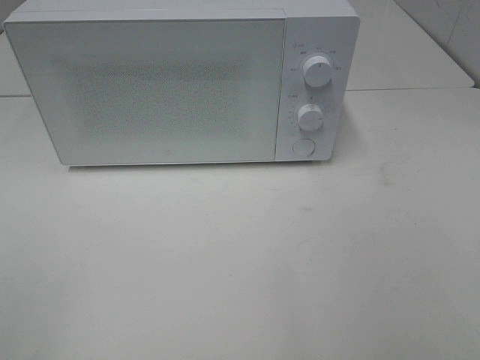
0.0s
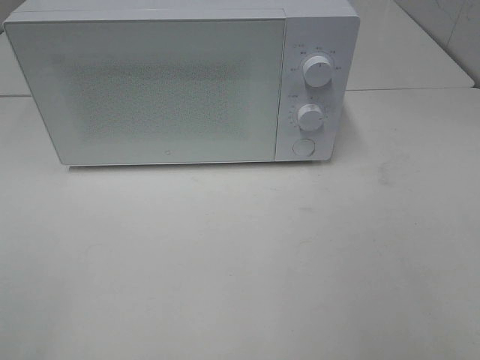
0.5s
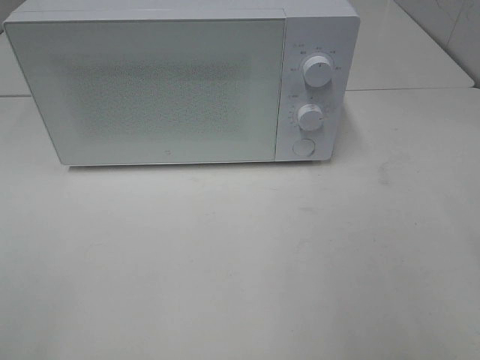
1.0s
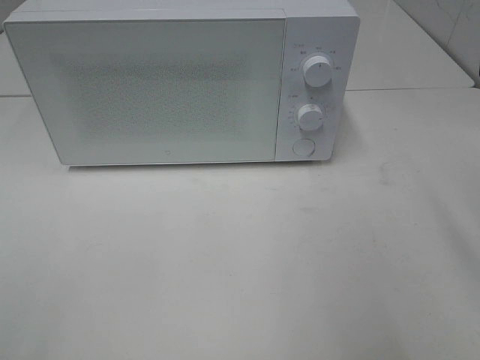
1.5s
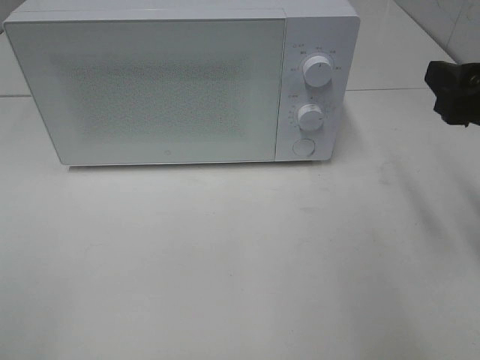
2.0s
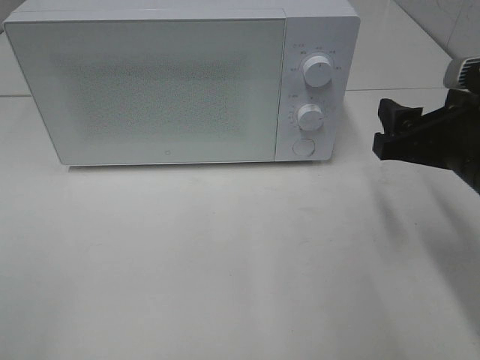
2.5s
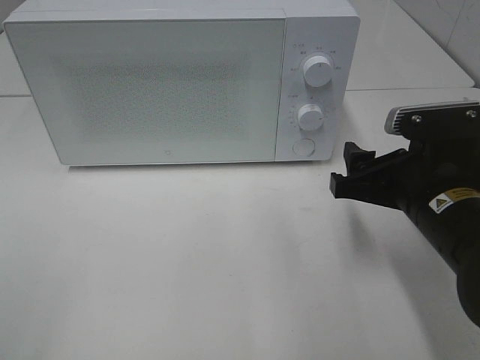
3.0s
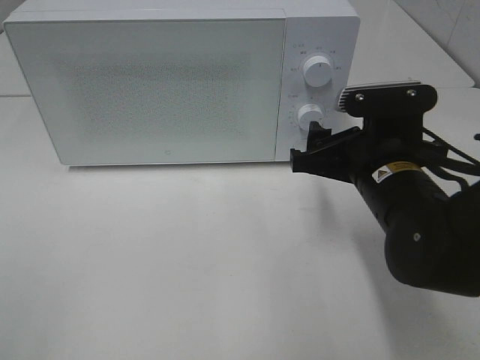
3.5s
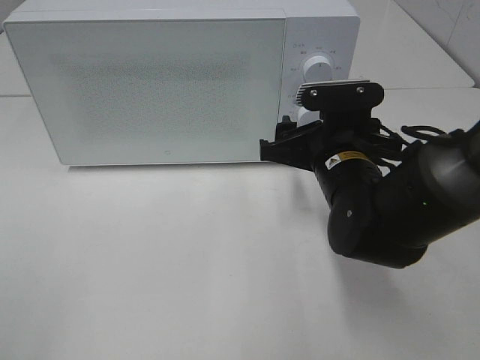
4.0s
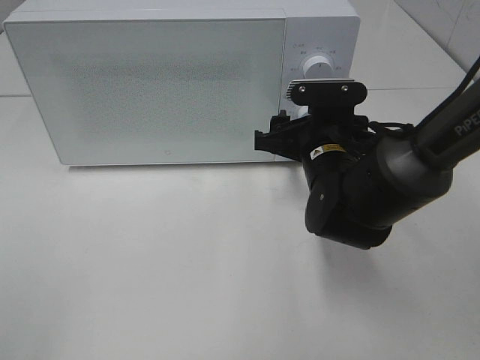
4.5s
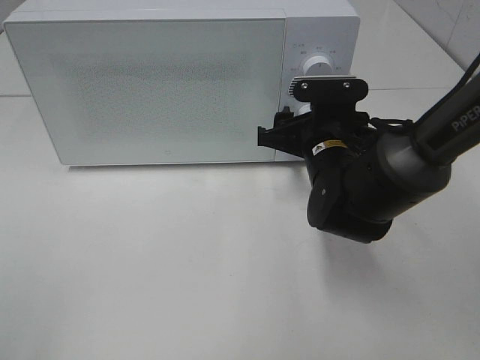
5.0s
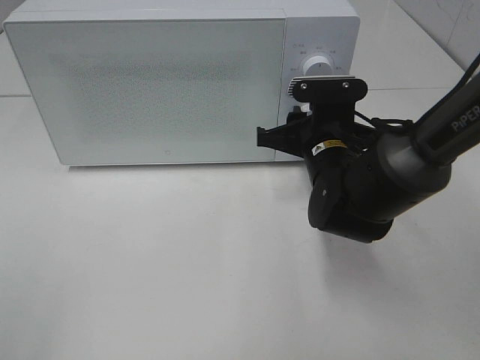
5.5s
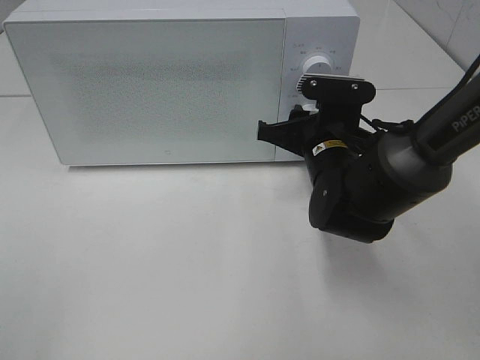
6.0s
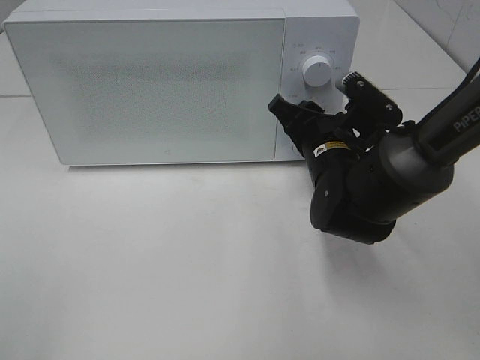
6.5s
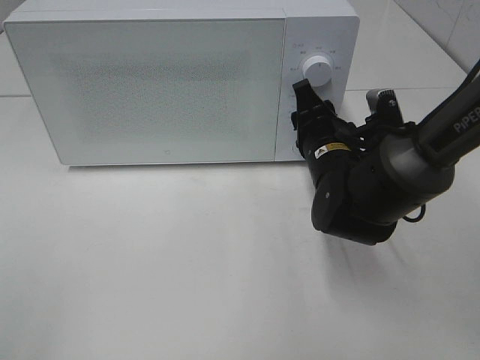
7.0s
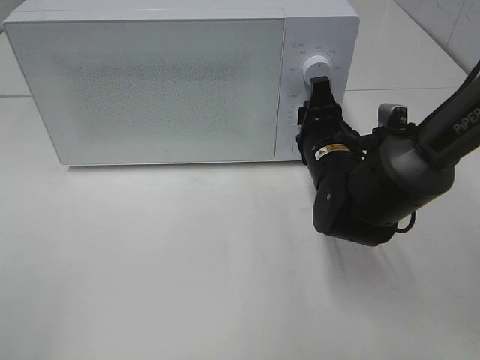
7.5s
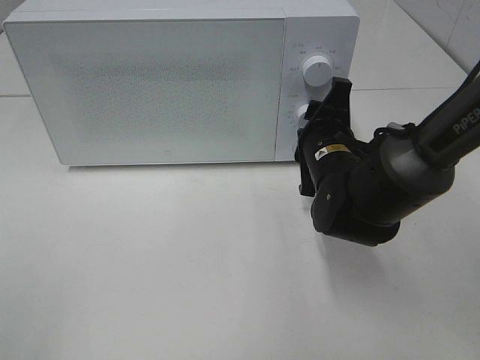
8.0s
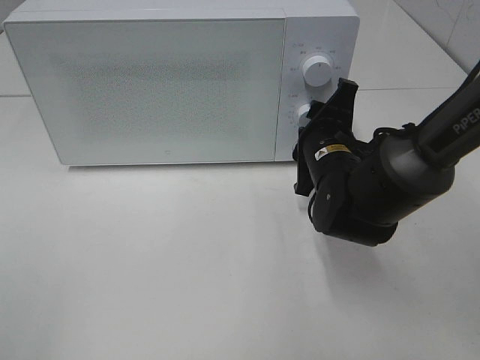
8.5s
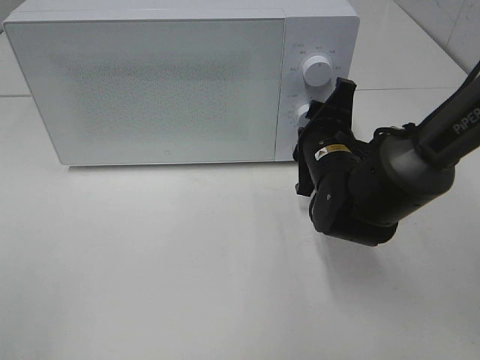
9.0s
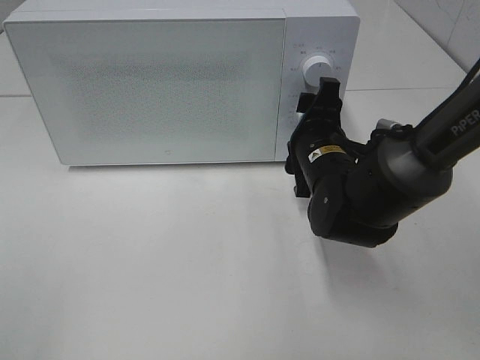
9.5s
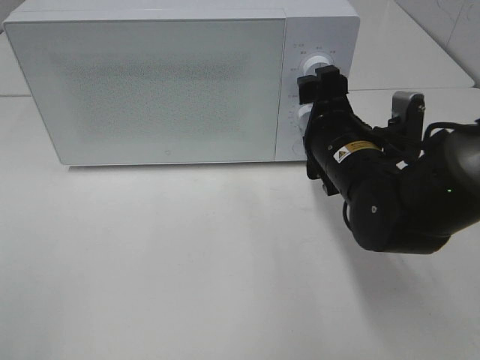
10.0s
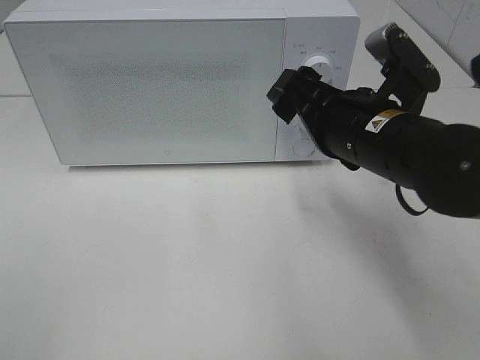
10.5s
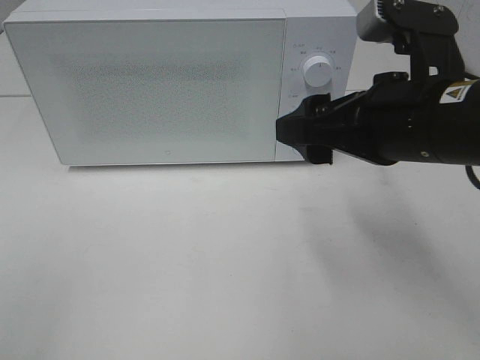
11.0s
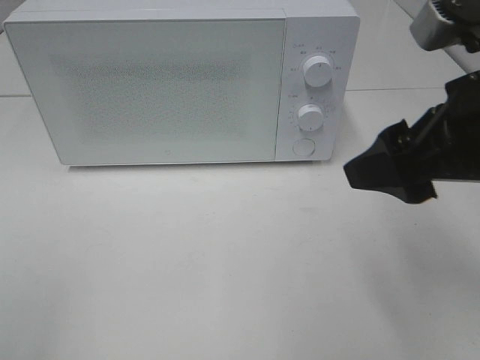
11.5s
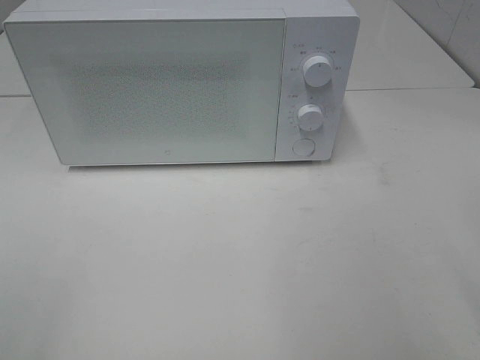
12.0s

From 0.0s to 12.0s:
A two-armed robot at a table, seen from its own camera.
Task of the whole recording: Heat the burger.
Step, from 0.0s to 9.5s: Right hand: twist timer button.
From 0.0s to 2.0s: The right gripper goes about 20 cm forward.
From 2.0s to 4.0s: The right gripper moves to the left, downward and forward, some 20 cm.
From 4.0s to 6.0s: The right gripper closes its fingers.
From 8.0s to 10.0s: The right gripper opens up.
From 10.0s to 12.0s: The right gripper goes about 30 cm backward, upward and to the right.

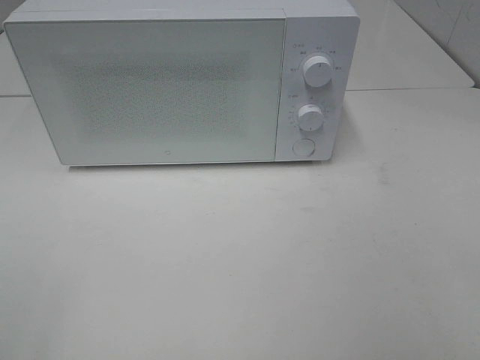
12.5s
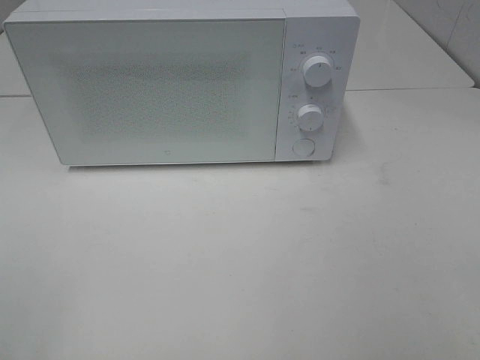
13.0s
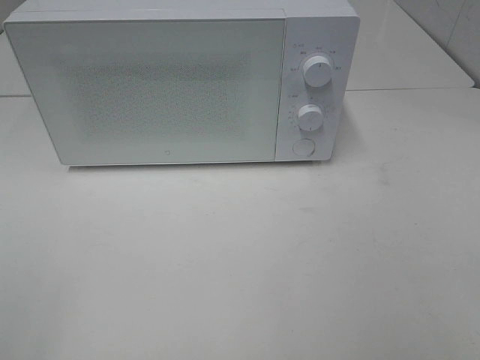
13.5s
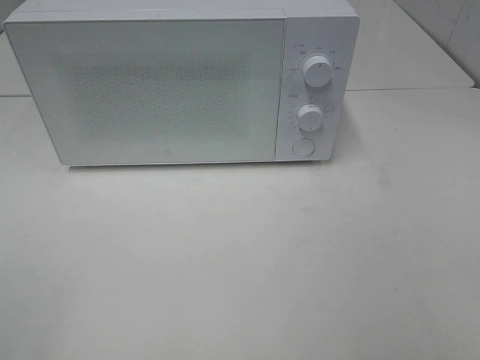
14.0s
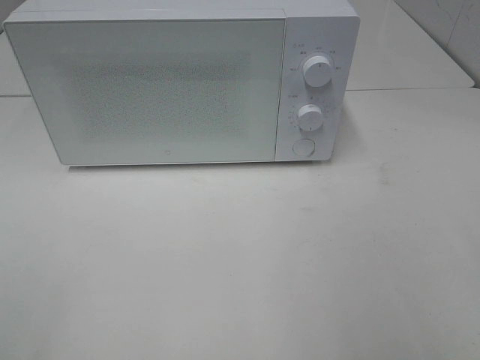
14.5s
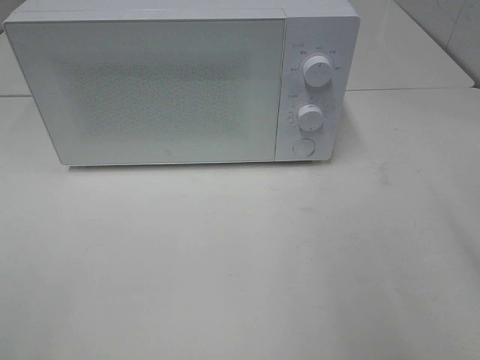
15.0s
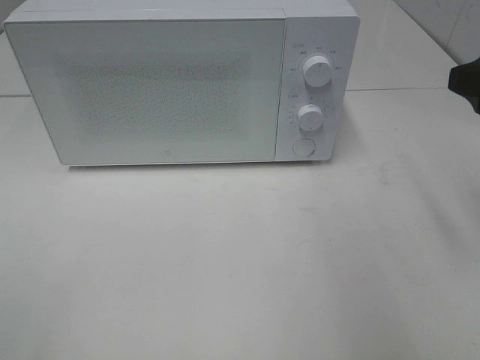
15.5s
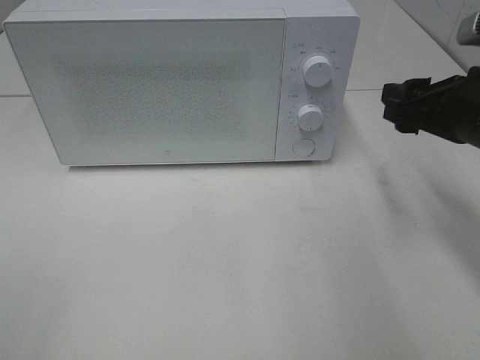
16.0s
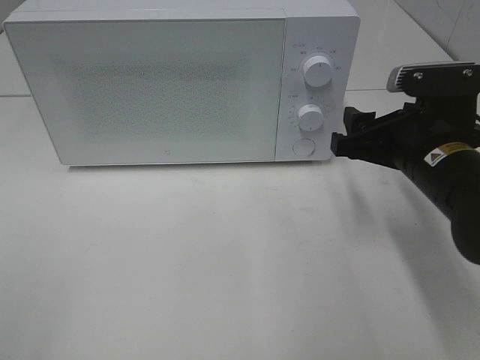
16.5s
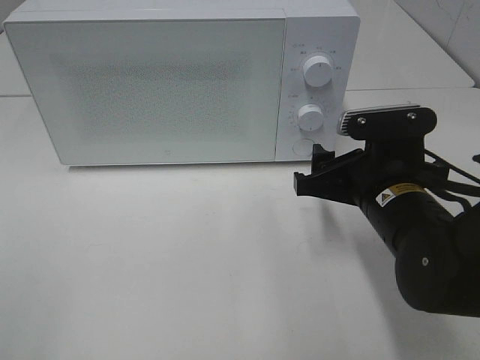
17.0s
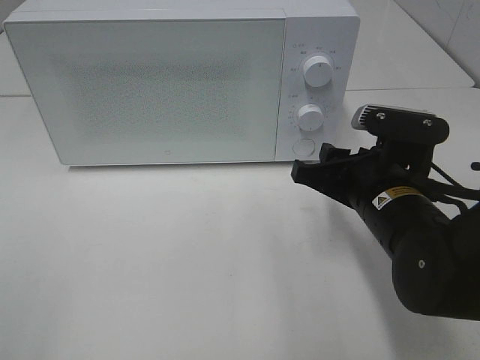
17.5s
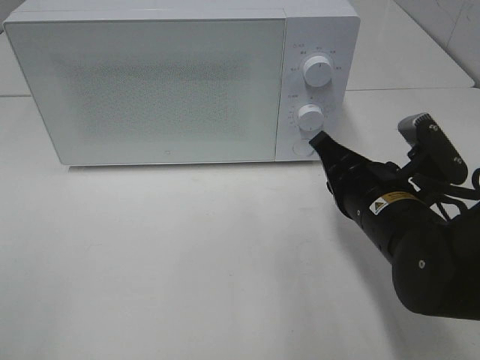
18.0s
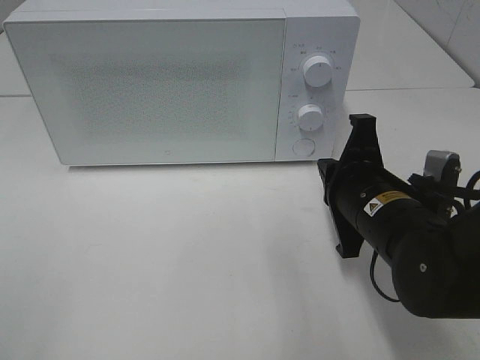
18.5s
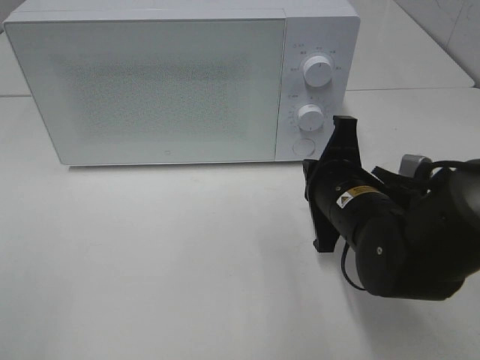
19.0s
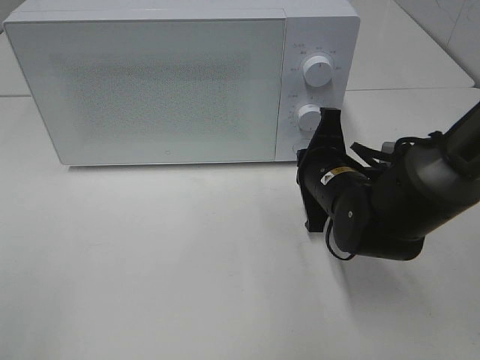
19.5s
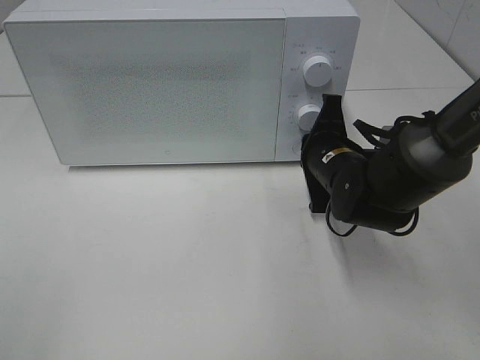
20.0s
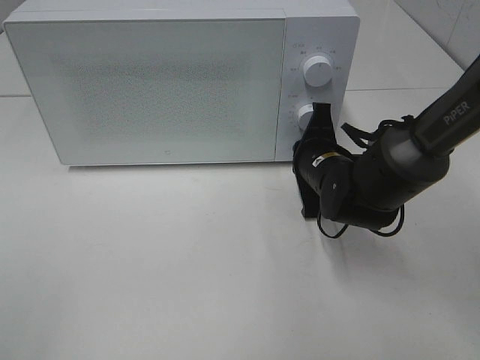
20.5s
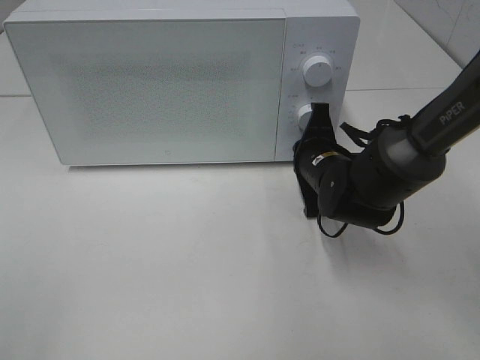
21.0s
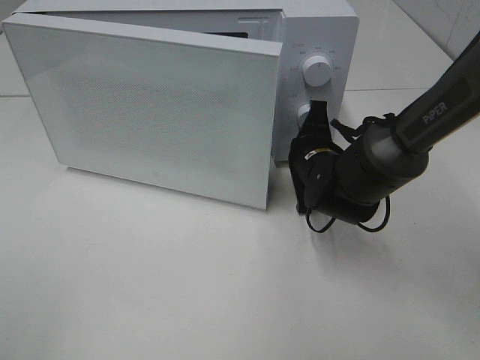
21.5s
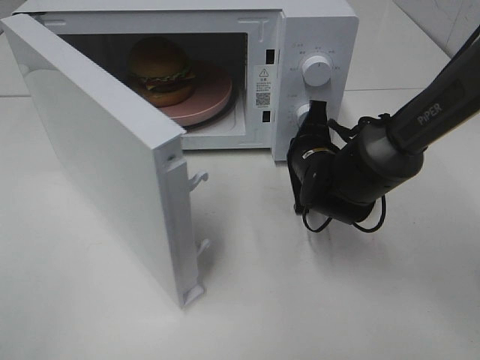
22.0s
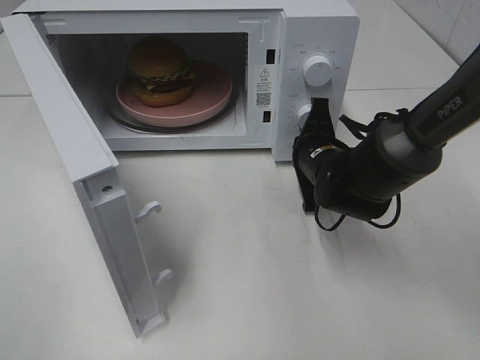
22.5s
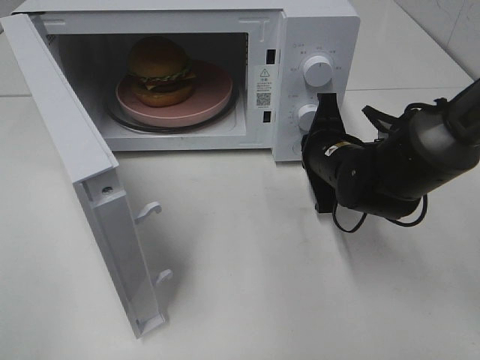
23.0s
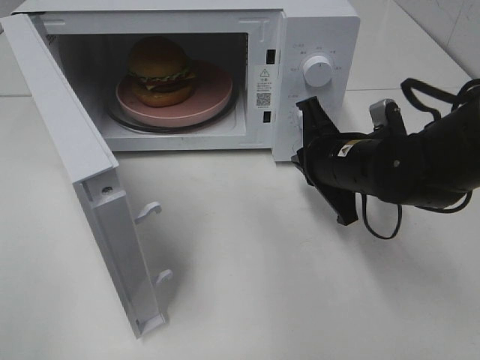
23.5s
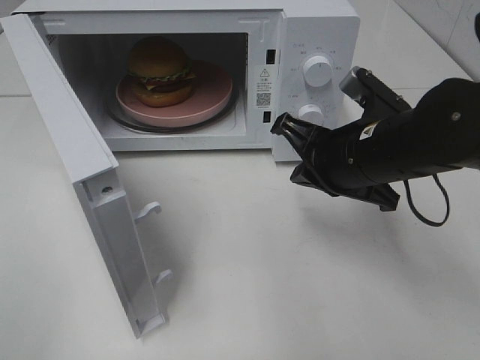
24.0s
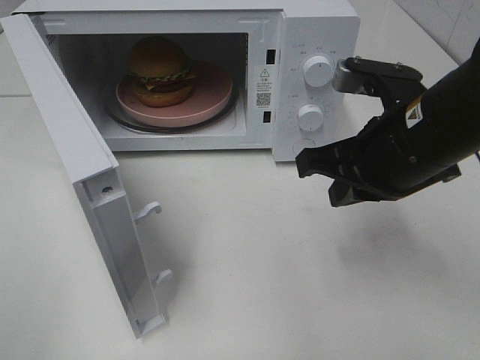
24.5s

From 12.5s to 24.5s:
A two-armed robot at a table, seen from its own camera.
Task of the whole recording: Heat the burger.
Step, from 12.5s to 23.0s: Right hand: press the switch.
From 14.5s to 16.5s: The right gripper moves forward, downward and to the left, about 25 cm.
From 16.5s to 18.5s: The right gripper moves to the left, roughly 5 cm, and closes up.
From 18.5s to 20.5s: The right gripper heads forward, covering some 10 cm.
From 22.5s to 24.5s: The right gripper travels upward and backward by about 20 cm.

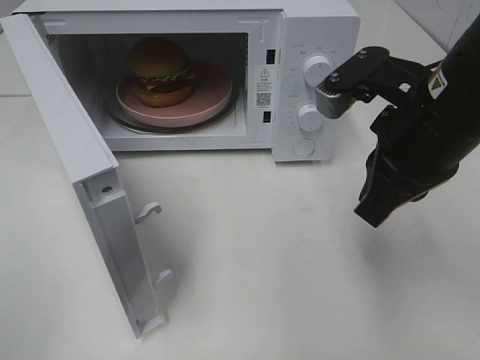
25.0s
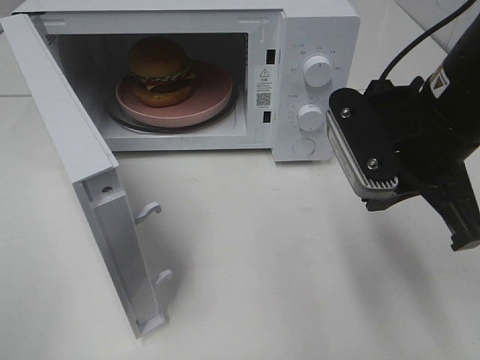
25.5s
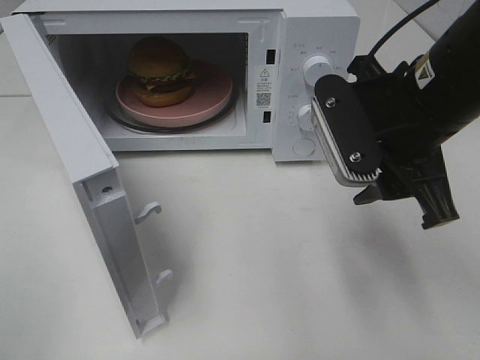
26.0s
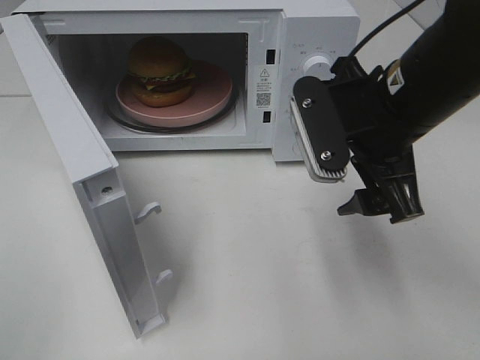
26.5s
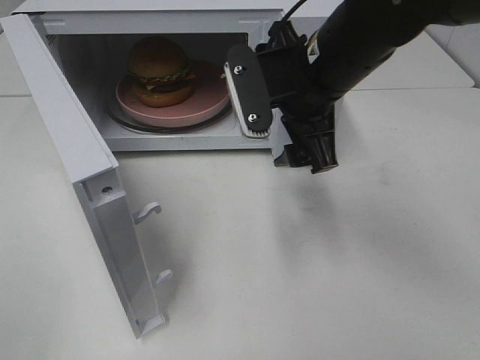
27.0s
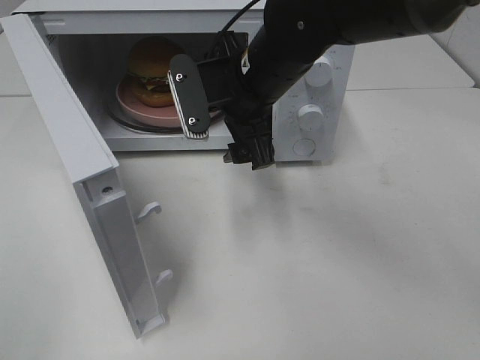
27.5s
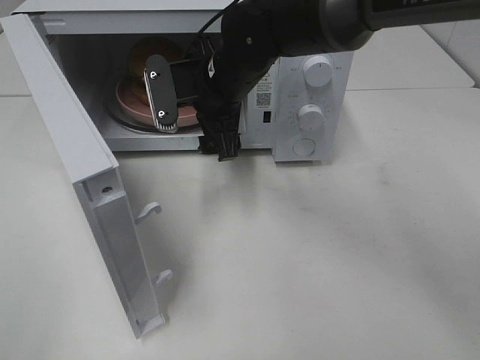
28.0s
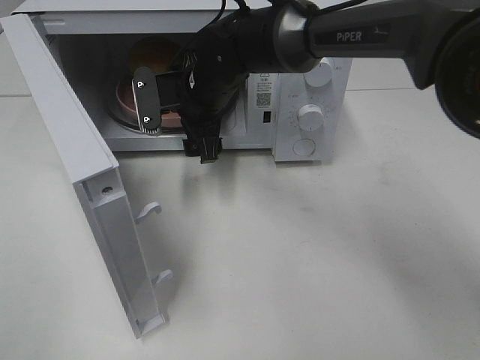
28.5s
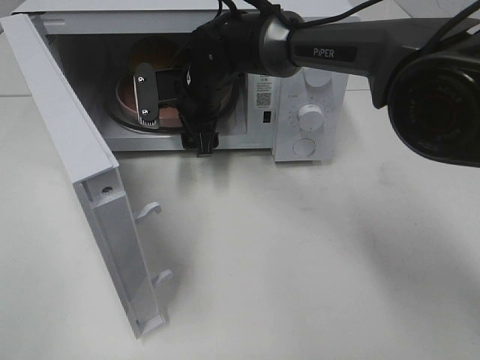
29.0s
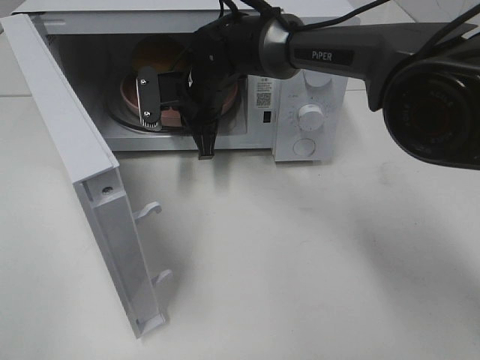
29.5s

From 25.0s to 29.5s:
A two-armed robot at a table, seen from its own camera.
Task of the whole recording: Heat the burger.
From 25.0s to 27.0s: The right gripper moves to the left and forward, approximately 10 cm, and opens its fingers.
From 27.0s to 29.5s: The right gripper travels forward, to the left and downward by roughly 20 cm, and closes up.
